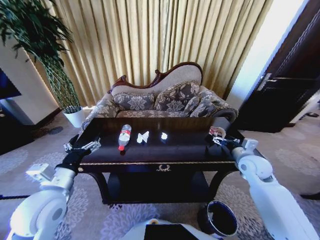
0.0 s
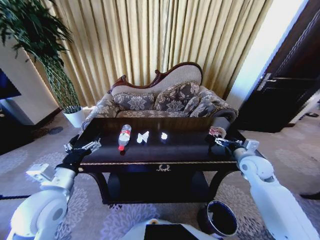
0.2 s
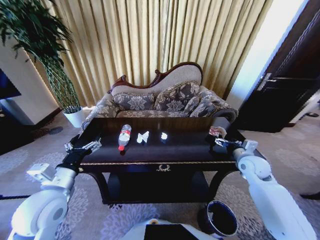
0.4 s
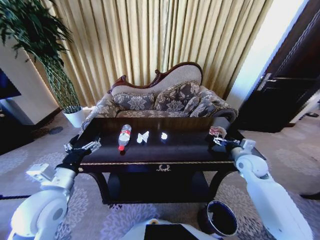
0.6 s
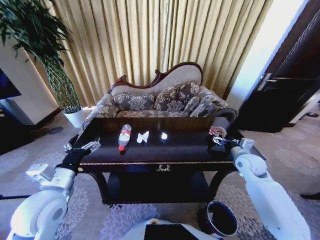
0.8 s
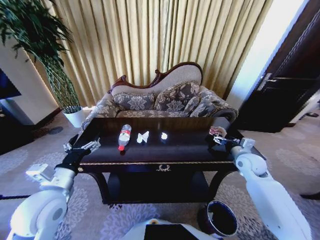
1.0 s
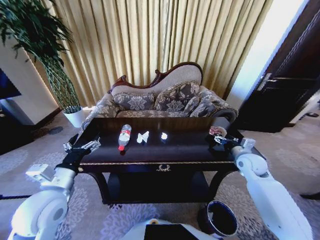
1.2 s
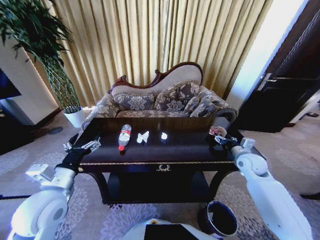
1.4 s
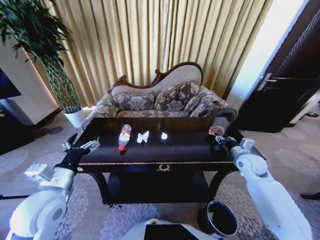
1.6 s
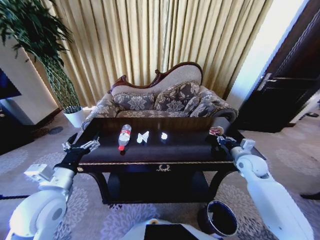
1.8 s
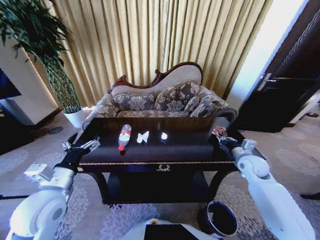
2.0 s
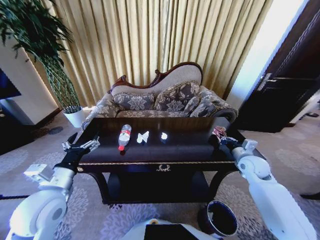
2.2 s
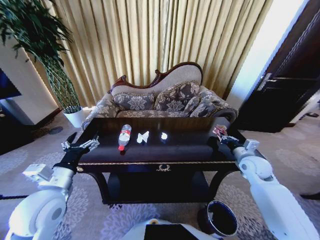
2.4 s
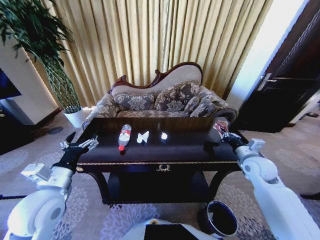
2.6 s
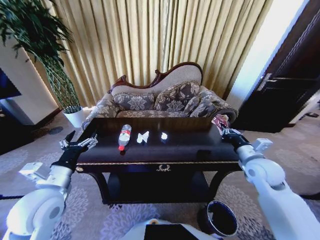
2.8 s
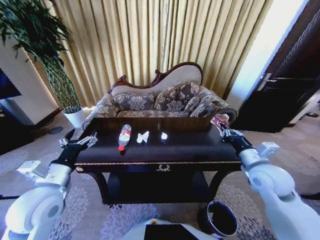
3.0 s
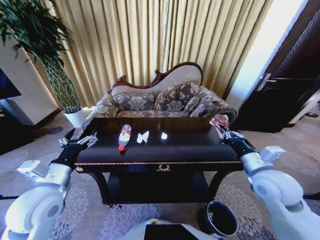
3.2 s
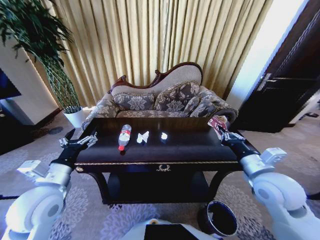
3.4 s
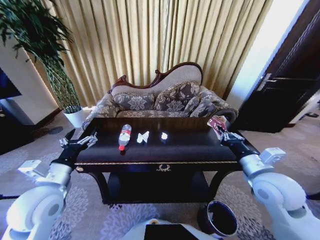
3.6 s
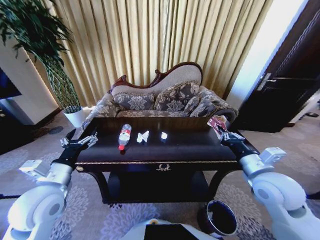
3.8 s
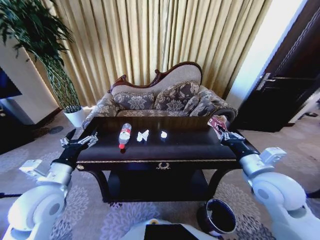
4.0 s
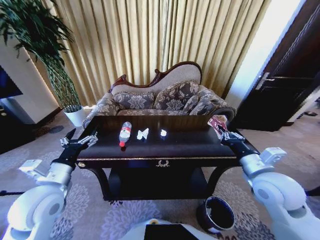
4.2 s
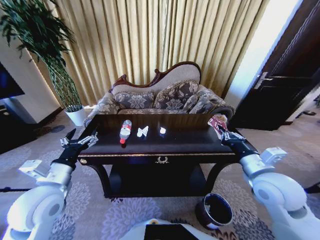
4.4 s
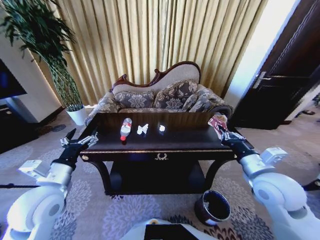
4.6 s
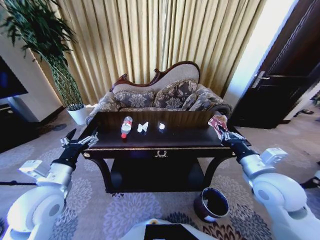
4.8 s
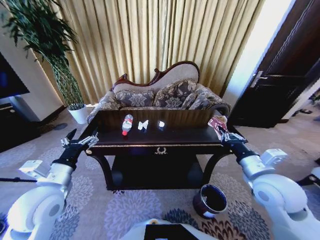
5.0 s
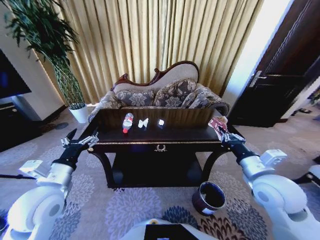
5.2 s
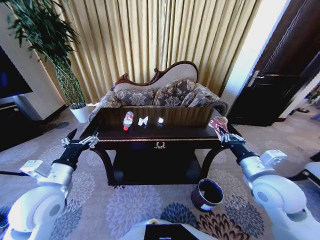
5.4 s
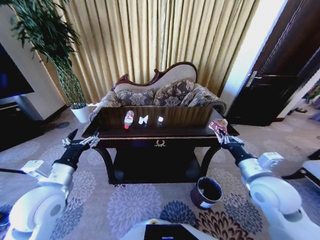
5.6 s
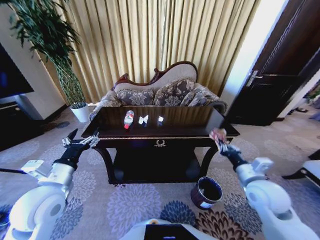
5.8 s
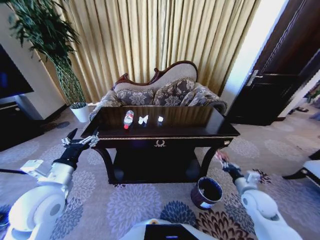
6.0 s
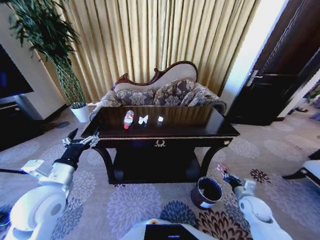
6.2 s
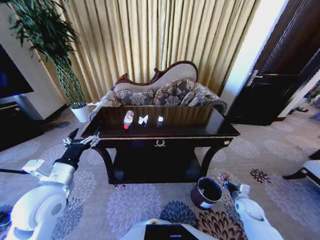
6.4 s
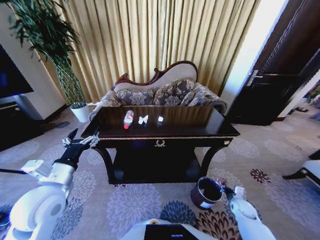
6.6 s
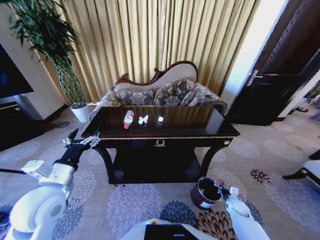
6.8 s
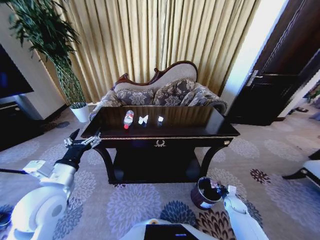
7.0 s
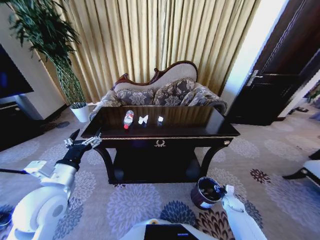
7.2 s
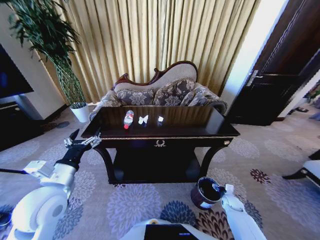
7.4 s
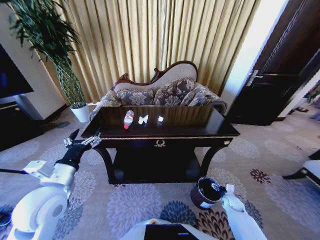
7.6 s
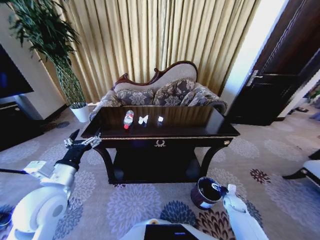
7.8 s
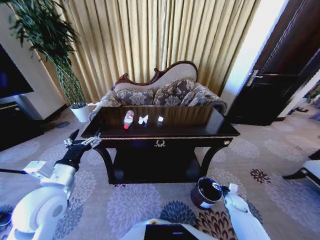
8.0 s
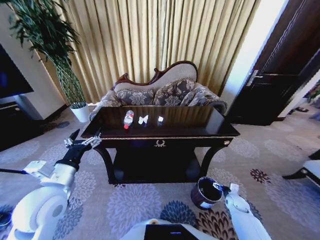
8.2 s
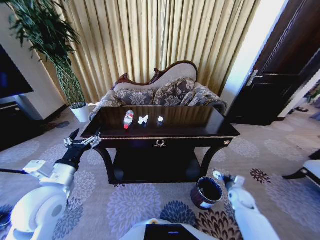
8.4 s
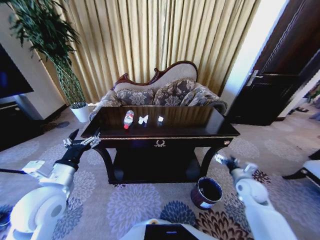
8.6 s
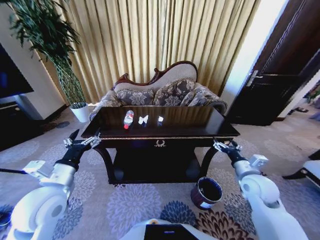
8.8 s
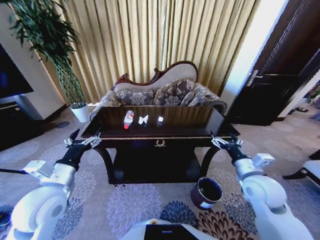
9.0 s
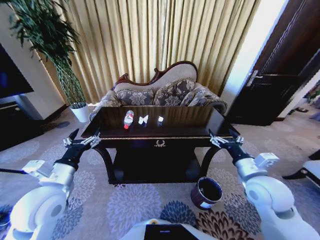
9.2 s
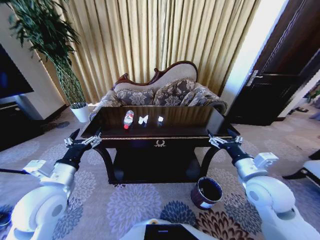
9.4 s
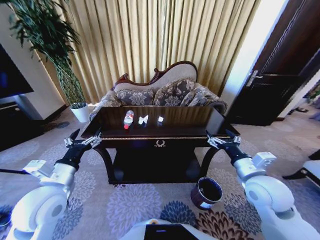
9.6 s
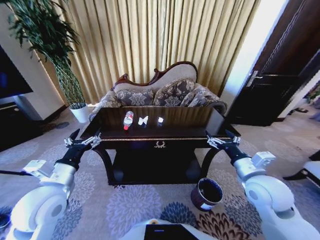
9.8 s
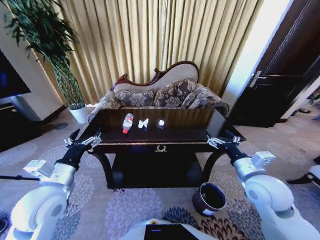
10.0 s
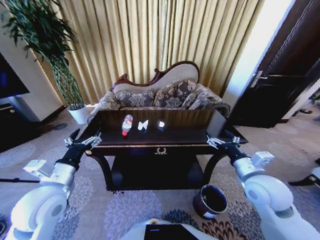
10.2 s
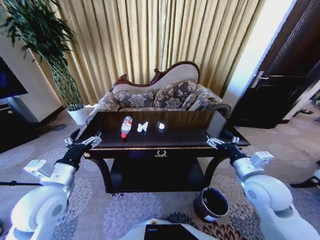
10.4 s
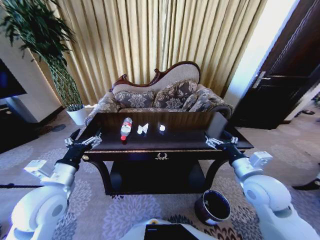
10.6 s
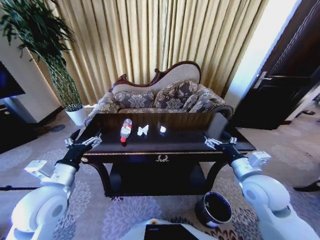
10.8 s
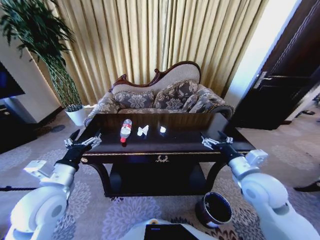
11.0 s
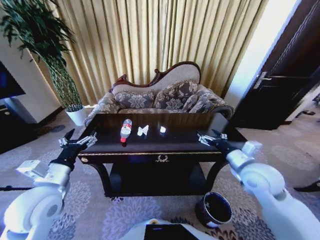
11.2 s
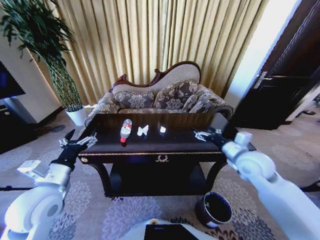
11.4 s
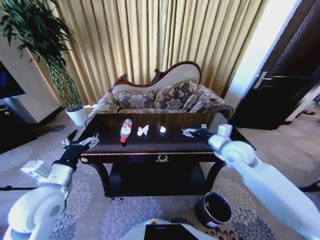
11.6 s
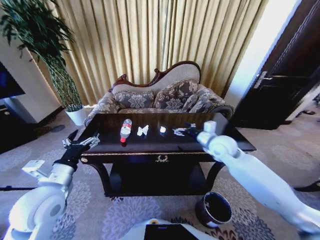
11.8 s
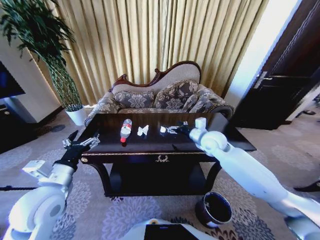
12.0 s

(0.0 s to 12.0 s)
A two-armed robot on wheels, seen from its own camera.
Task of the whole recording: Move to the front of the table and place the trash on the table into the trash bin.
0.0 s - 1.6 s: The right gripper closes.
1.6 s - 3.0 s: The right gripper moves backward, upward and to the left, some 15 cm, and closes its fingers.
3.0 s - 4.4 s: The right gripper moves some 5 cm.
4.4 s - 6.0 s: The right gripper moves downward and to the right, some 20 cm.
6.0 s - 7.6 s: The right gripper is displaced downward by about 20 cm, and opens its fingers.
7.6 s - 9.0 s: The right gripper moves upward, some 35 cm.
10.4 s - 12.0 s: The right gripper shifts approximately 20 cm forward and to the left.

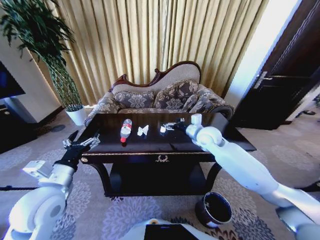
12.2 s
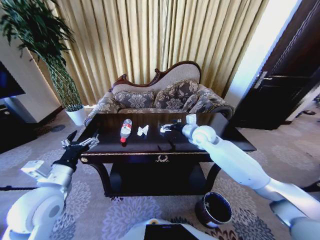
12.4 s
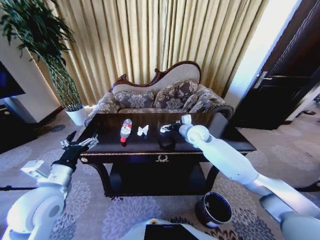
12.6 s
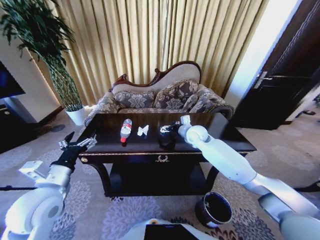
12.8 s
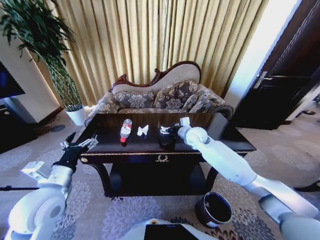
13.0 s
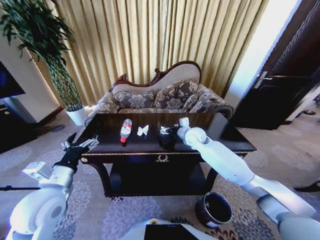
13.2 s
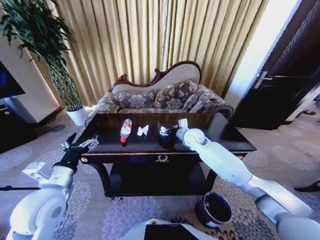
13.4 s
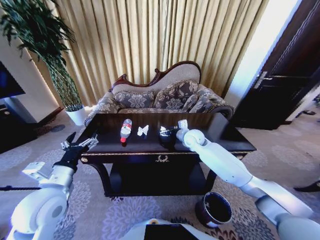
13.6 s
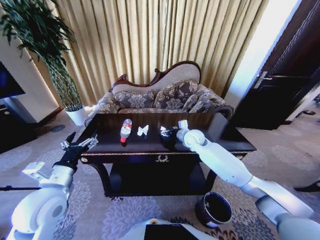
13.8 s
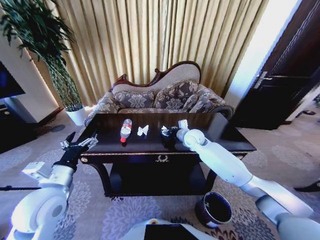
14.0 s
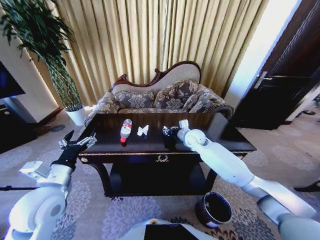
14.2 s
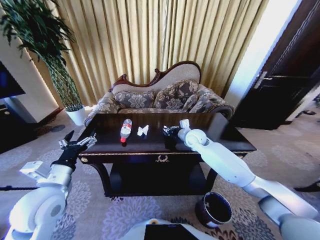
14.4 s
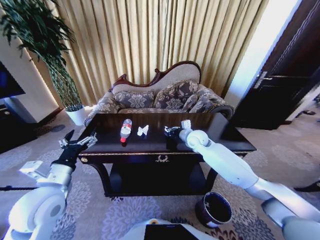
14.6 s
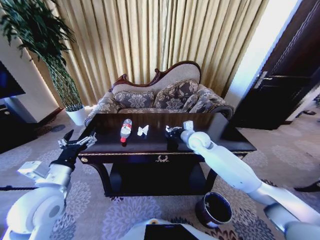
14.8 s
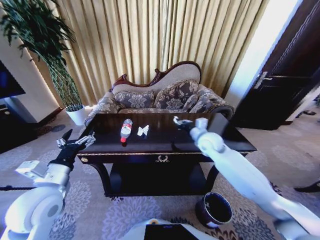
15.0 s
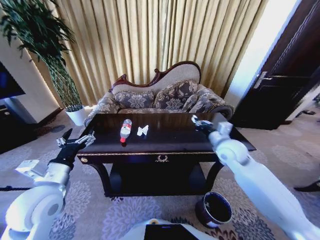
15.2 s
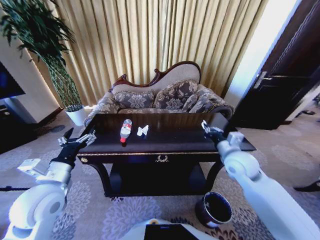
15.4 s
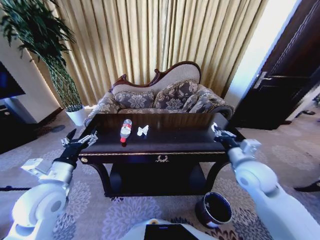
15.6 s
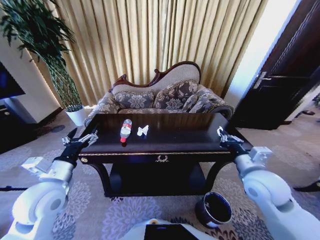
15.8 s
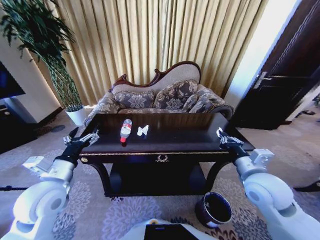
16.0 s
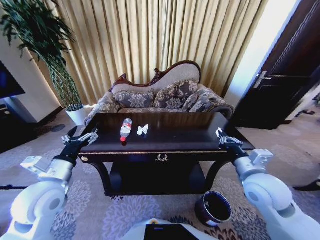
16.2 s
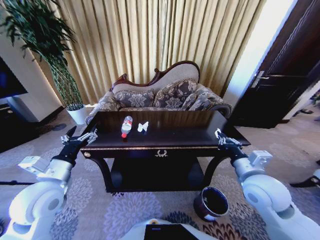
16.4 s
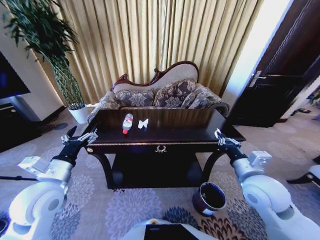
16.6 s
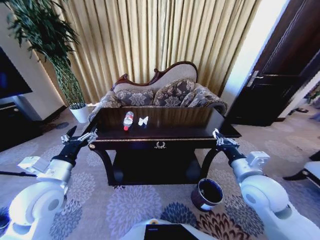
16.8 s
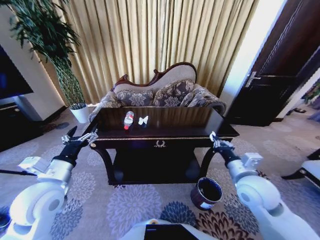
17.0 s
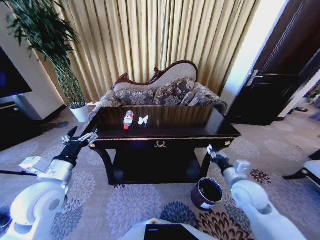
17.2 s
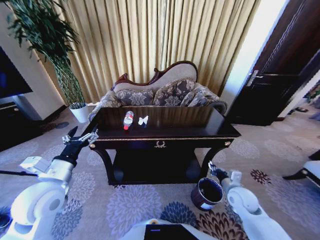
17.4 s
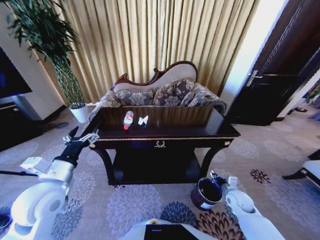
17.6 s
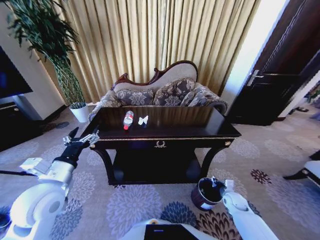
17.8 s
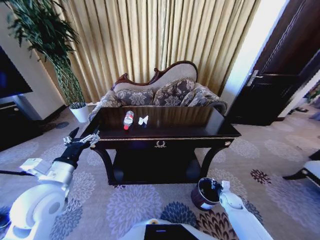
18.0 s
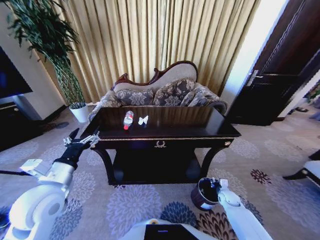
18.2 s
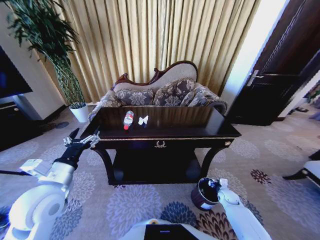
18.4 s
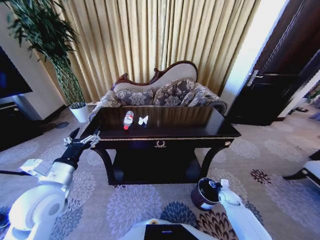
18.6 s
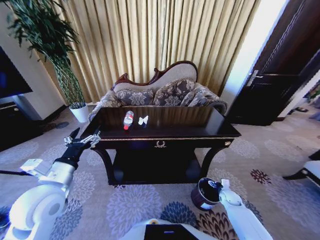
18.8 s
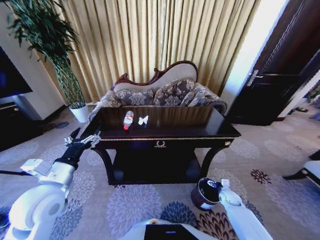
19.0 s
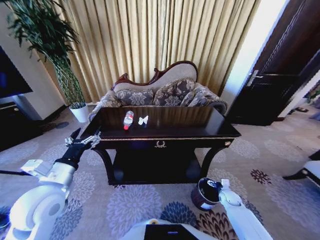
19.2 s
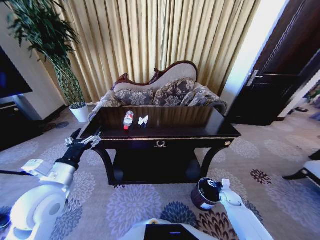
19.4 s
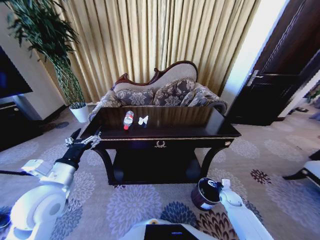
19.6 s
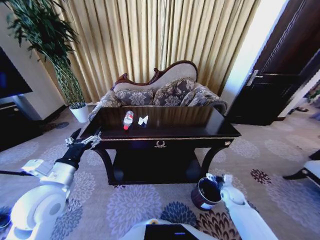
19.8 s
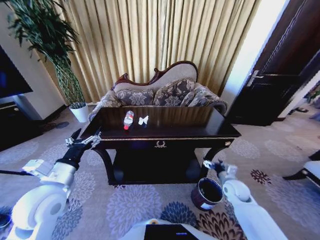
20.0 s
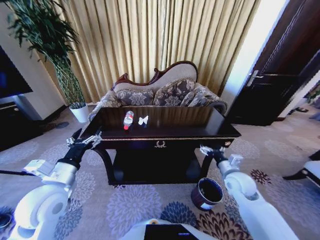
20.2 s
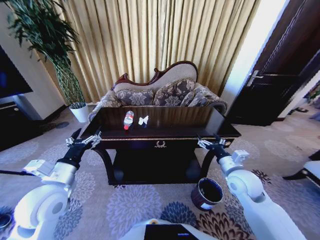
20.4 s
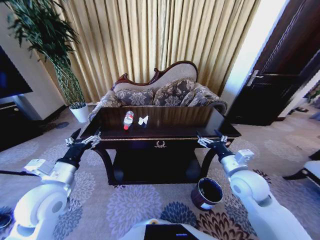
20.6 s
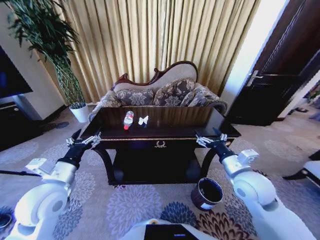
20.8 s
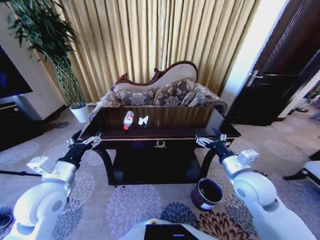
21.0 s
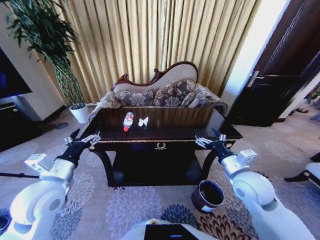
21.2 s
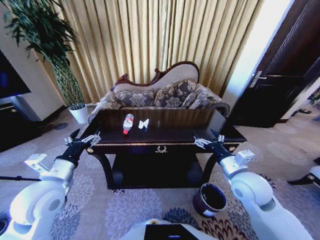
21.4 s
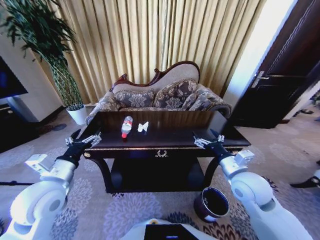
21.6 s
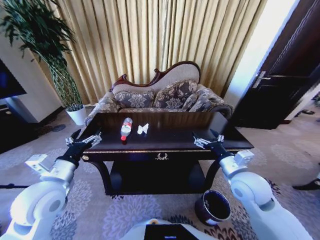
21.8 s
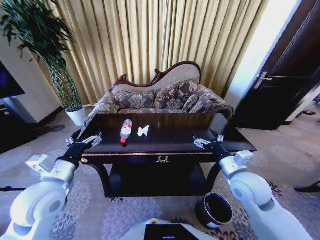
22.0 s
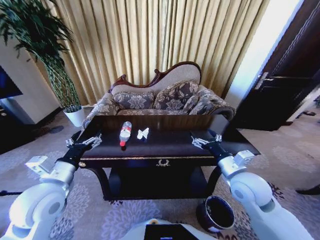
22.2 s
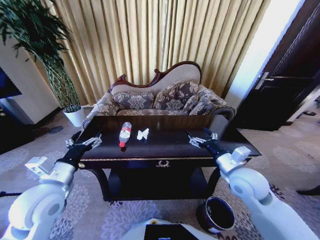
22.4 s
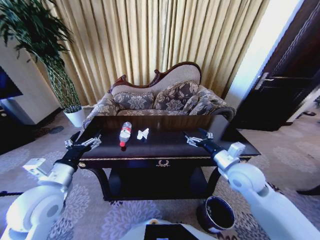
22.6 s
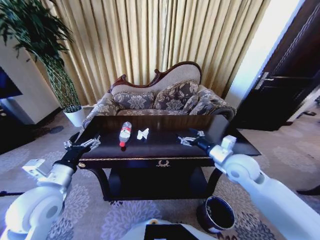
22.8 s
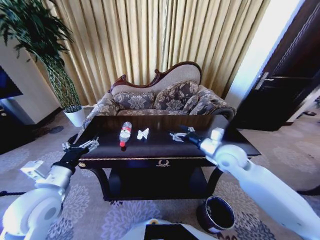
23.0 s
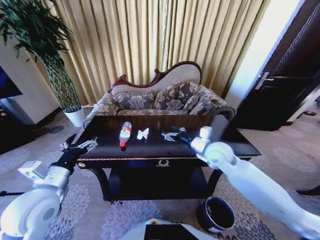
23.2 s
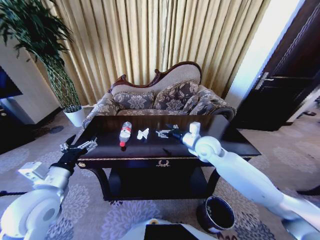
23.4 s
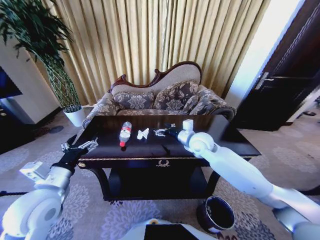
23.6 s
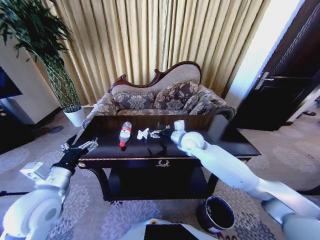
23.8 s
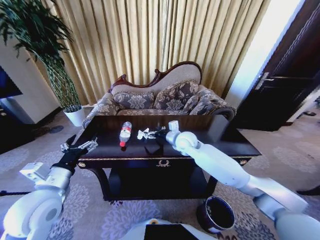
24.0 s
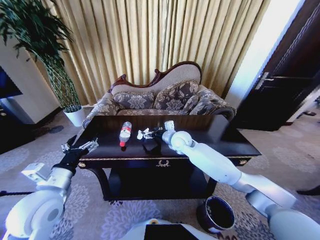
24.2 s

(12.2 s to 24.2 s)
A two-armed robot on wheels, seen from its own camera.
Task of the whole recording: Move to the front of the table and place the trash on the table into the trash bin.
12.2 s - 13.8 s: The right gripper shifts approximately 5 cm downward.
13.8 s - 15.2 s: The right gripper heads backward and to the right, covering roughly 15 cm, and closes up.
15.2 s - 16.6 s: The right gripper is displaced backward by roughly 15 cm.
16.6 s - 18.2 s: The right gripper moves downward, some 35 cm.
18.2 s - 19.8 s: The right gripper opens its fingers.
19.8 s - 21.2 s: The right gripper heads upward and to the left, covering roughly 30 cm.
22.6 s - 24.2 s: The right gripper goes approximately 25 cm to the left and forward.
